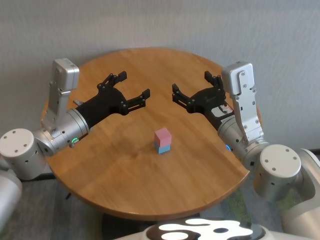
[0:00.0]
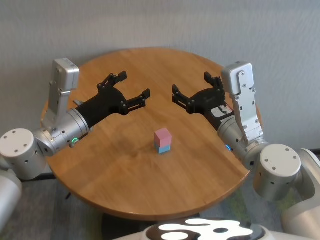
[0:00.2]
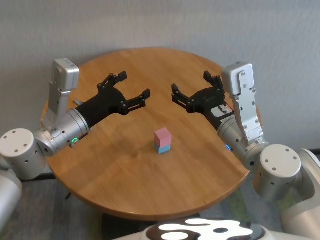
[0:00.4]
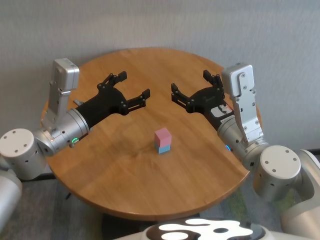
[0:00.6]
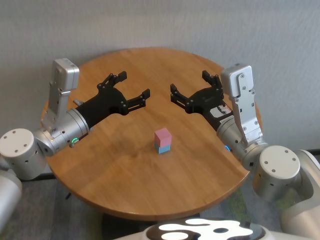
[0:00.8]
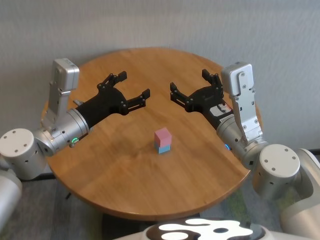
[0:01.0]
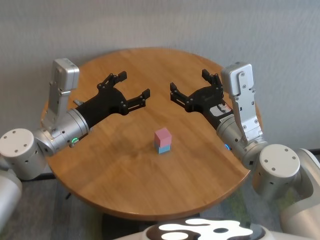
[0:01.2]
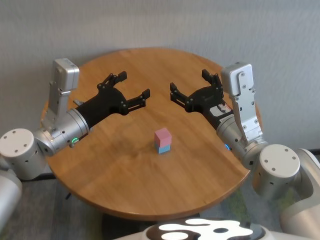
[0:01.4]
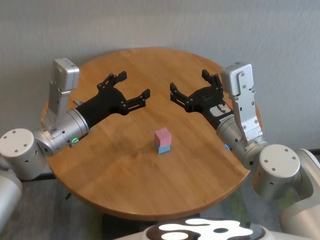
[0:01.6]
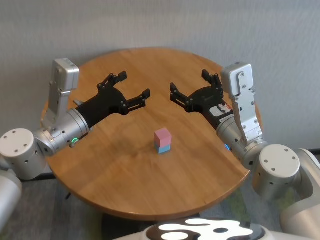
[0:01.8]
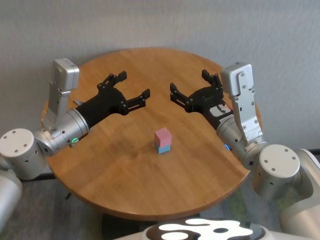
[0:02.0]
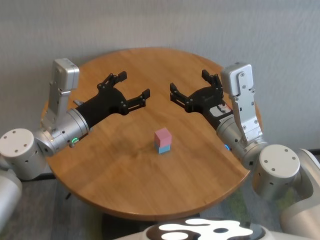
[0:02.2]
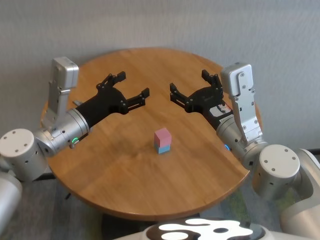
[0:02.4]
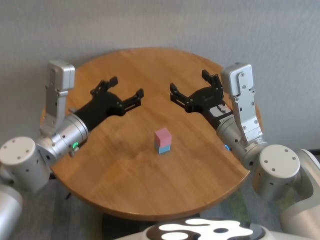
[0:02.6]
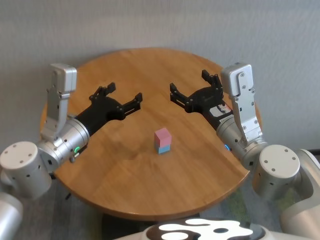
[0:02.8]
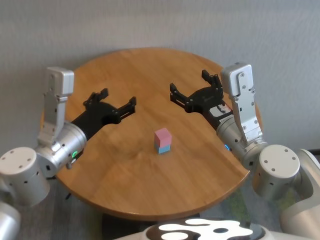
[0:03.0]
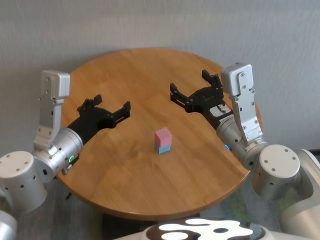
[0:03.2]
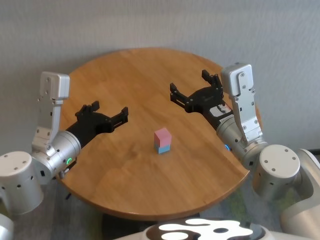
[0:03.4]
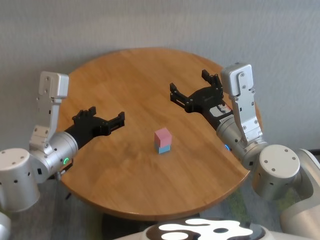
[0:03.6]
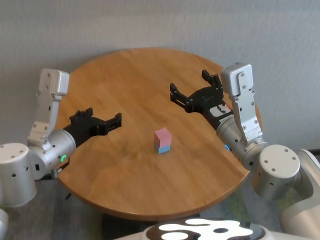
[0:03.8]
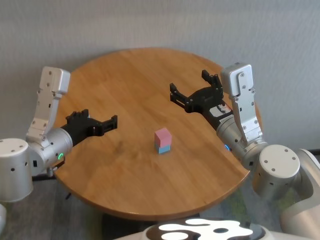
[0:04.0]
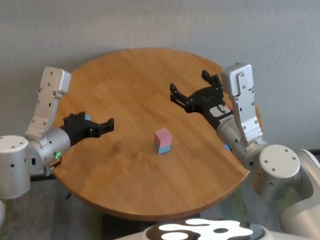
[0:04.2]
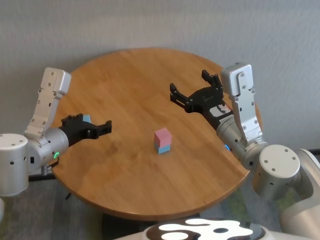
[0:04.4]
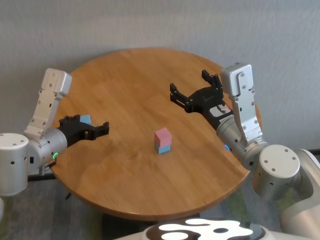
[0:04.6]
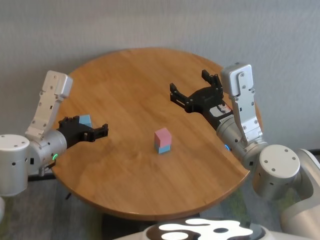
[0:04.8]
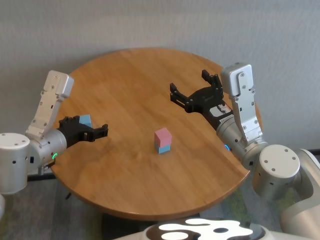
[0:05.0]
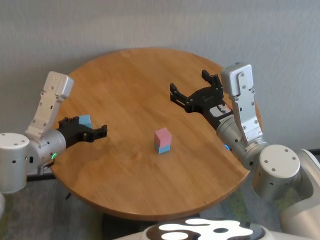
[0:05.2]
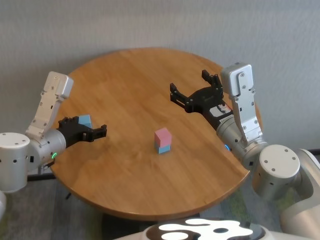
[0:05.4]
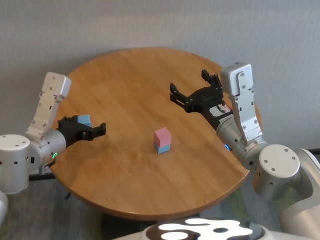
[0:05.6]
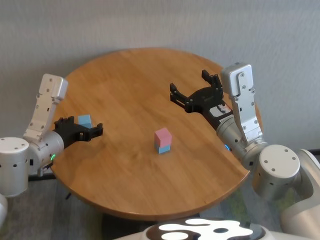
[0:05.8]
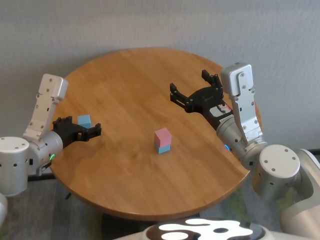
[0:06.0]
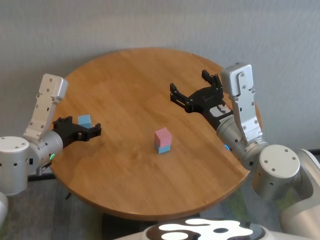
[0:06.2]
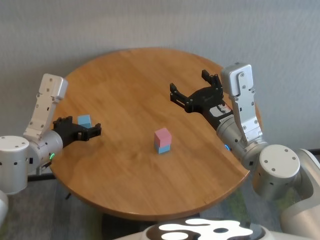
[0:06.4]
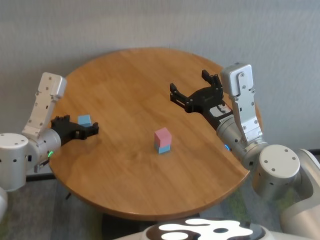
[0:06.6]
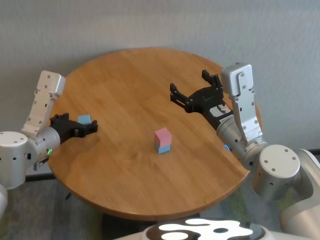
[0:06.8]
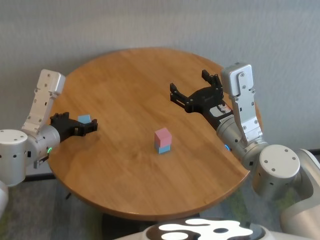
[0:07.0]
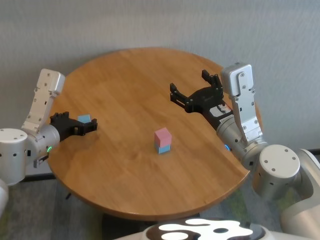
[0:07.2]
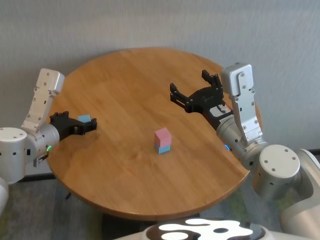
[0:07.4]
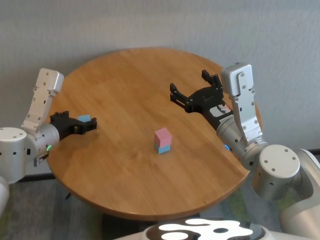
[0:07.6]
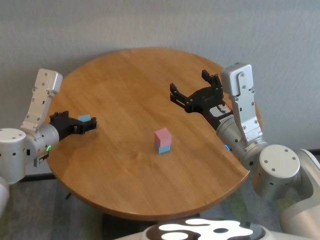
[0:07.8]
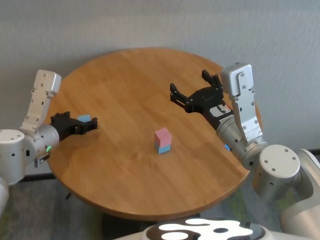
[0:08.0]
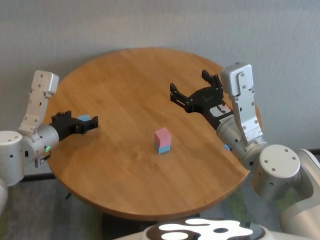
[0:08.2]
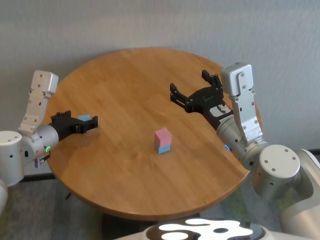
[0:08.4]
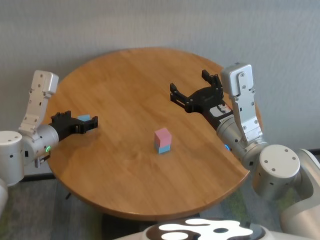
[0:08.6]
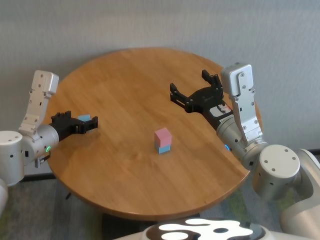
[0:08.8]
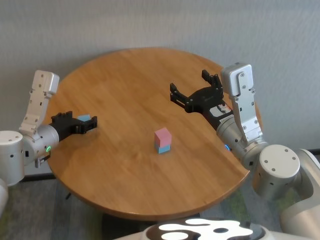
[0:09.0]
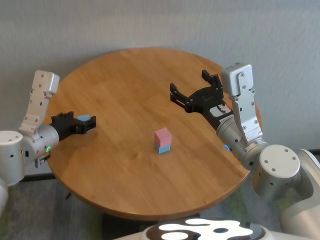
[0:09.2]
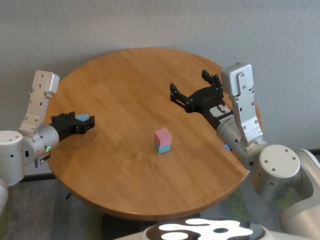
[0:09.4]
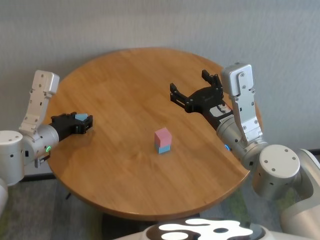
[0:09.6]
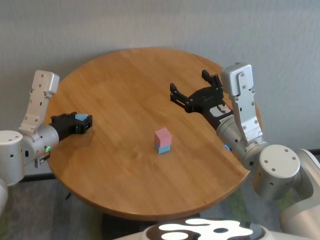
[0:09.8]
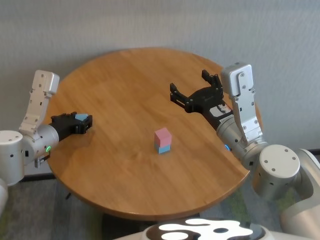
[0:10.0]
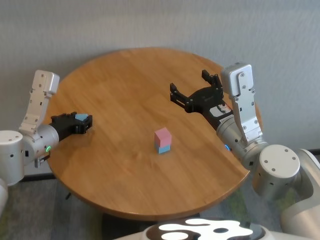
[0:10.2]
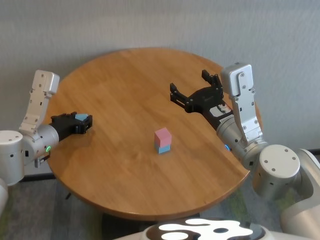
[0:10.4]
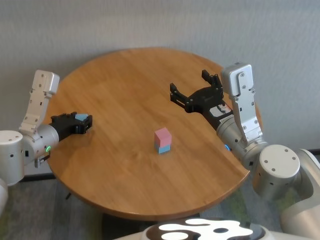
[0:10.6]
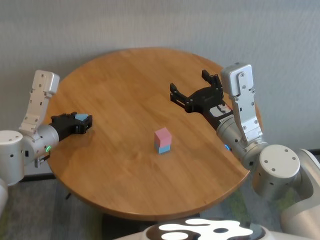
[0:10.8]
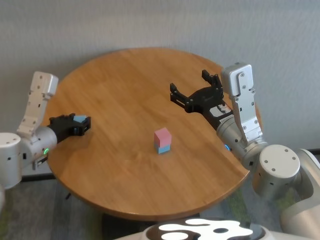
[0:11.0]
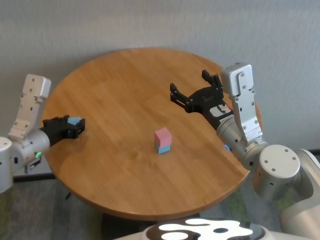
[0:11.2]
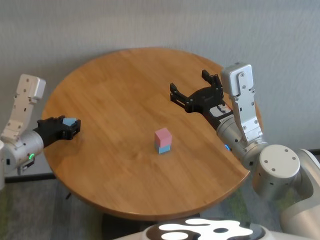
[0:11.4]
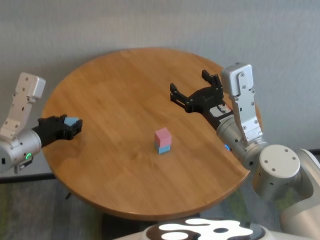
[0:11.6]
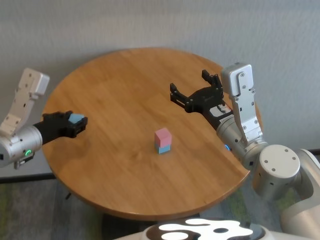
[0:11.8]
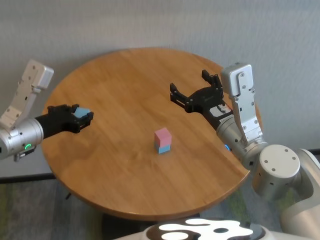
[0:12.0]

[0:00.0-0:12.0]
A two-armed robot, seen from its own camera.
Task of the whole recording: stack building blocks on the table.
Step, 0:00.0 to 0:09.6: Grasp the blue building block with left gripper.

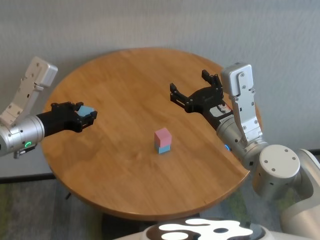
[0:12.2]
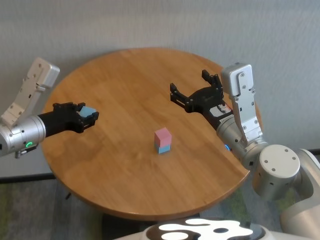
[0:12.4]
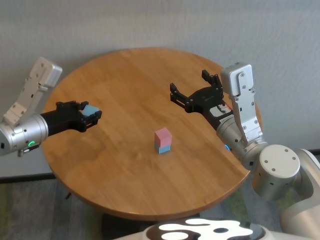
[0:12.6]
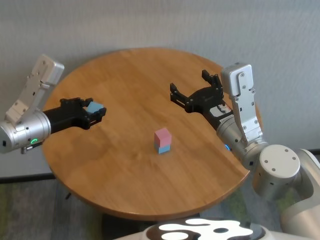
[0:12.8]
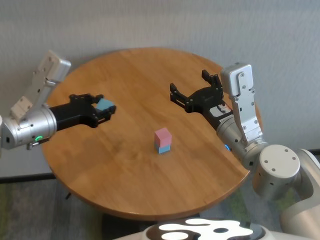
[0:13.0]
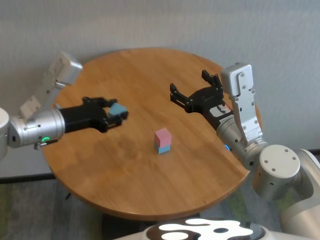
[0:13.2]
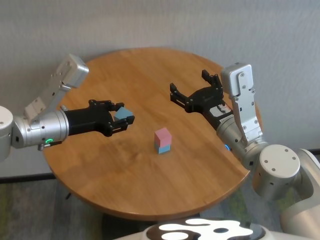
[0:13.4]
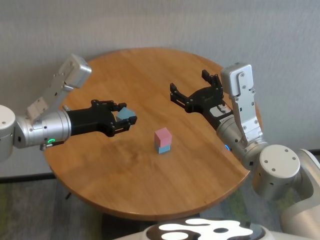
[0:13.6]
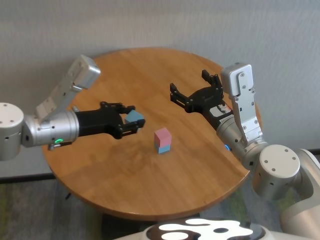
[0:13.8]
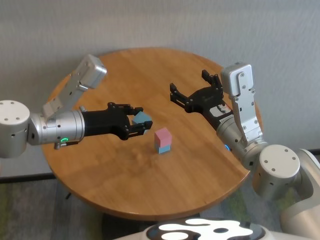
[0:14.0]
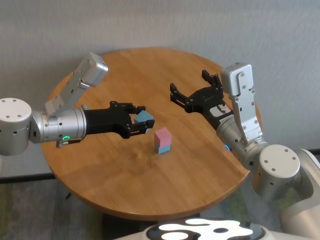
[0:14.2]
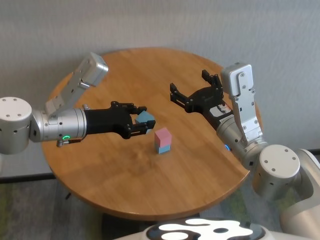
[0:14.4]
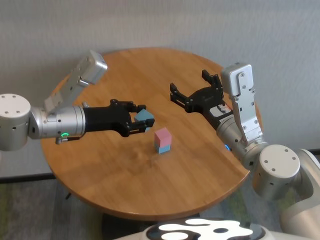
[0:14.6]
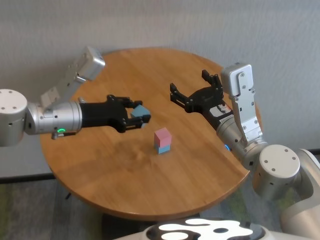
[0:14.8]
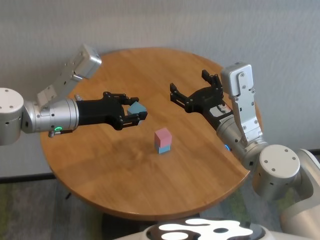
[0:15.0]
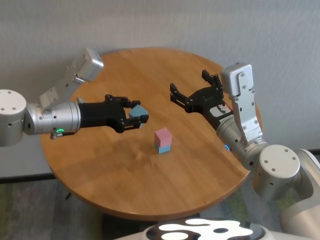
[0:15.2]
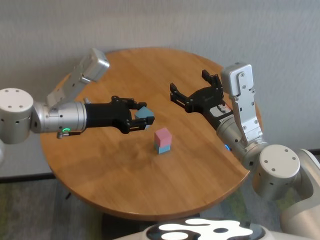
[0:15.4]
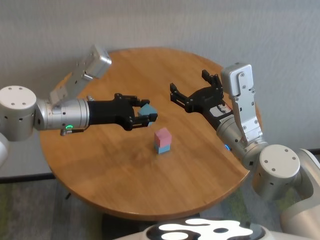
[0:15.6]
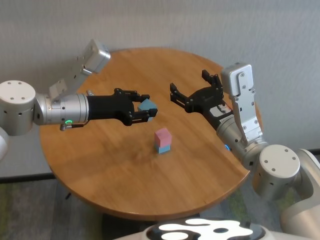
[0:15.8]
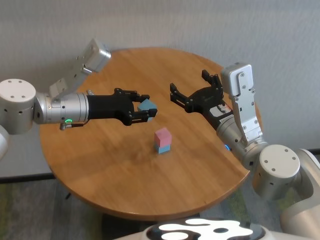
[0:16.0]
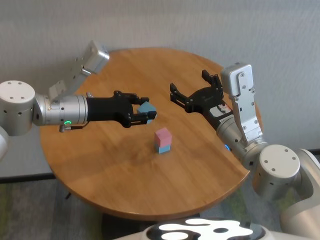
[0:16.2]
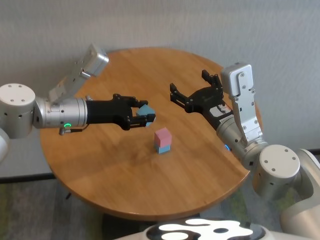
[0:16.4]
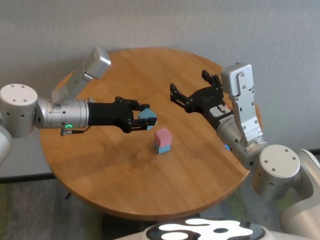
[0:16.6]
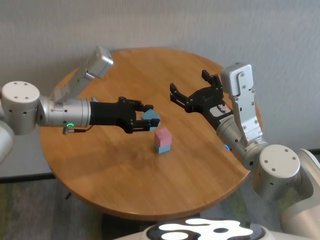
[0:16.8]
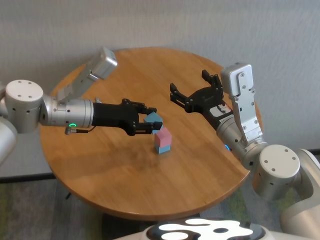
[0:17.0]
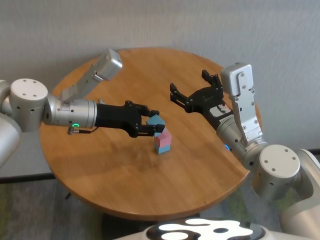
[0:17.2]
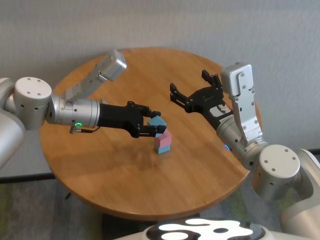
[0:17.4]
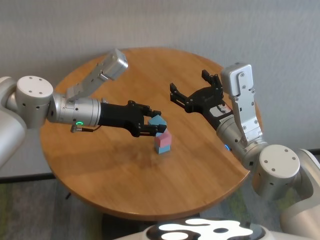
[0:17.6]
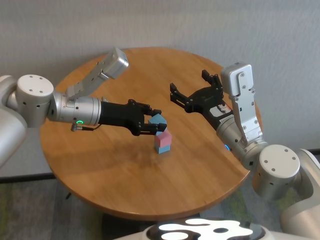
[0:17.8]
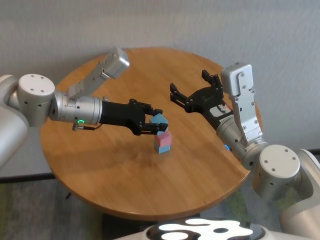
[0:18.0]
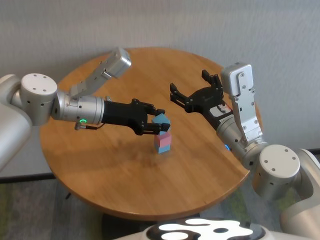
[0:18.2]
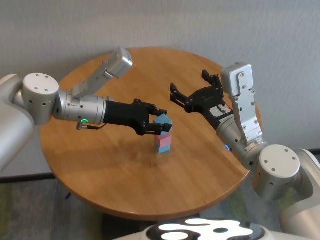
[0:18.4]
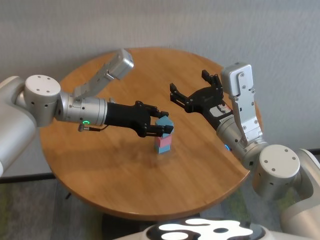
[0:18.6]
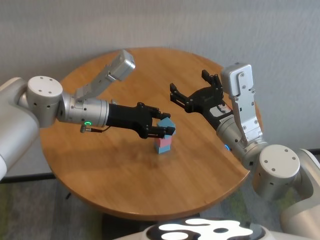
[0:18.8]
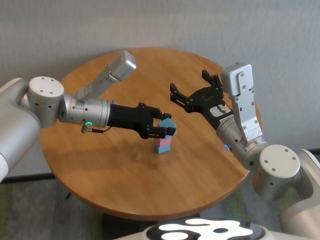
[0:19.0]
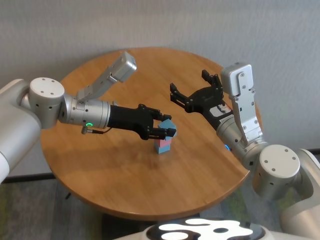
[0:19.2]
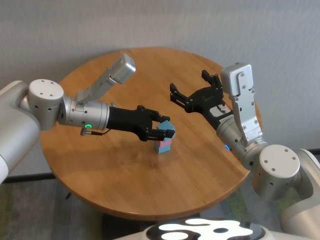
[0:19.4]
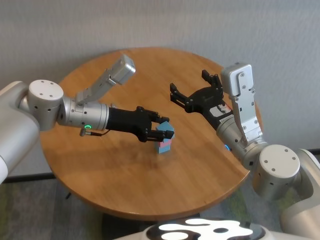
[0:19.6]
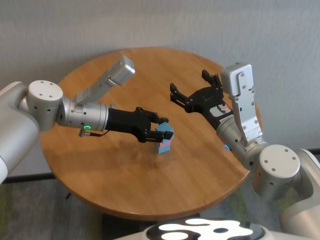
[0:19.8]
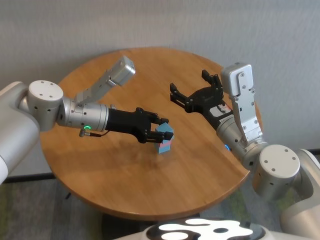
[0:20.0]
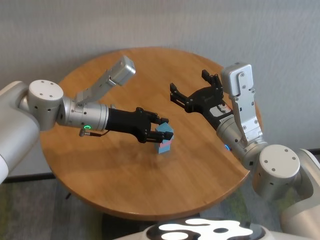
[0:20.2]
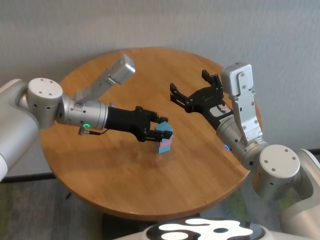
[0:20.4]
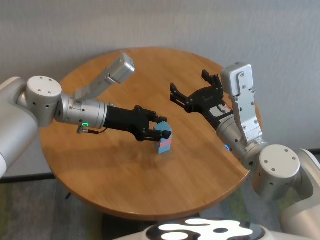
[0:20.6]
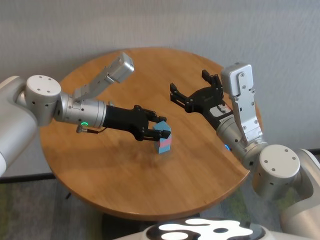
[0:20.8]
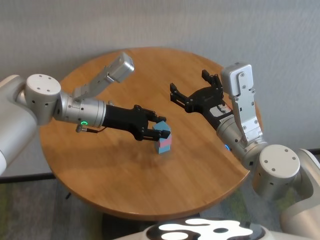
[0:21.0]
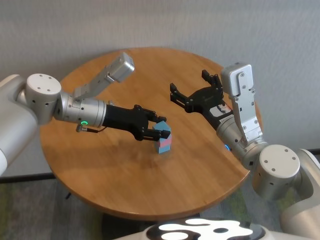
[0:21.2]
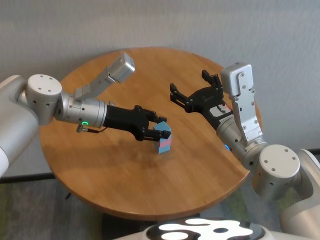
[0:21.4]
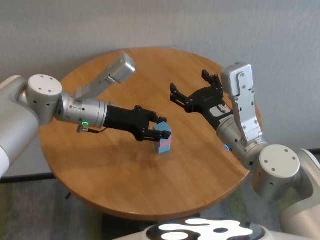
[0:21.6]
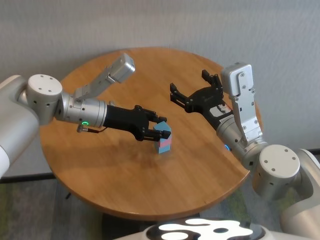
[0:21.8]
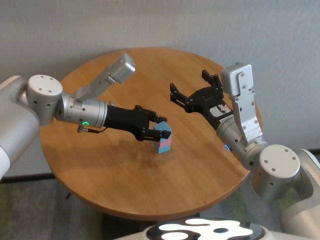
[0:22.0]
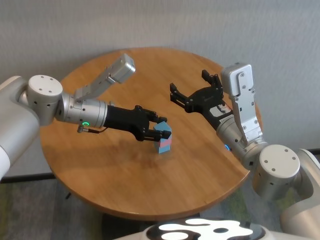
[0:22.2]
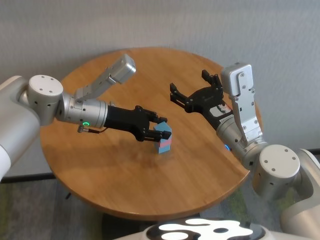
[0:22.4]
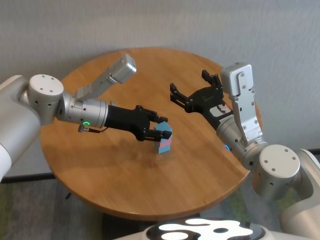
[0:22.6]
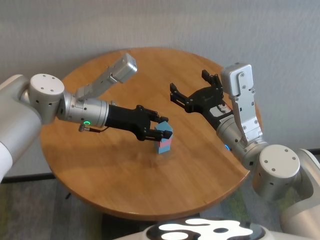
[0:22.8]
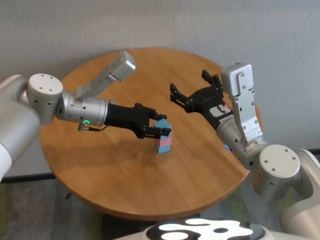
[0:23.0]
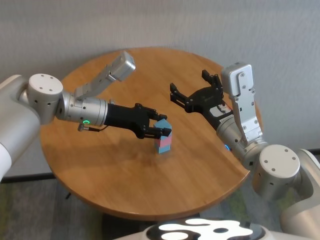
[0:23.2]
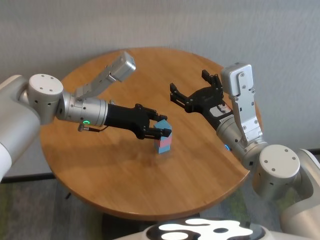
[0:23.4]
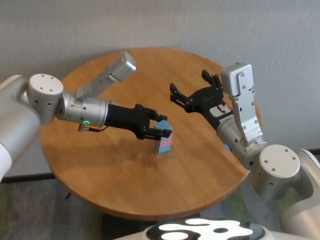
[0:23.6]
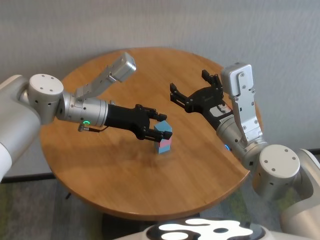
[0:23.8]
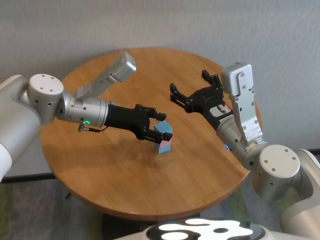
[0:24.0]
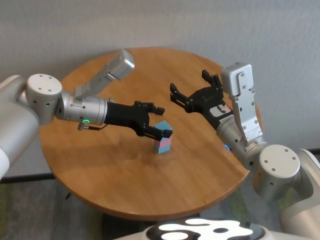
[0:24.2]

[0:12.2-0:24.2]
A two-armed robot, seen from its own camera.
Task of the whole recording: stack building blocks on the table.
Step, 0:12.2 to 0:24.0: Place the blue building block on the pink building blocks with left gripper.
